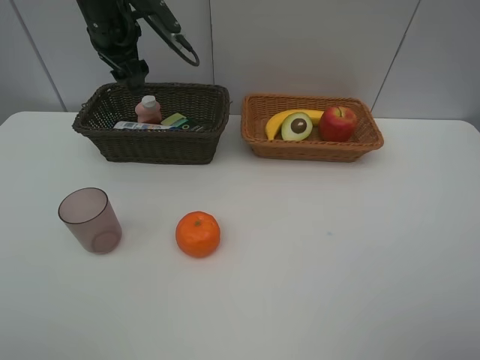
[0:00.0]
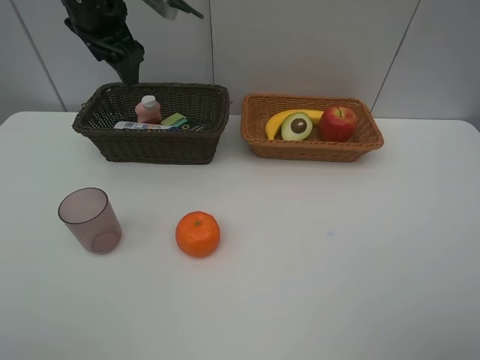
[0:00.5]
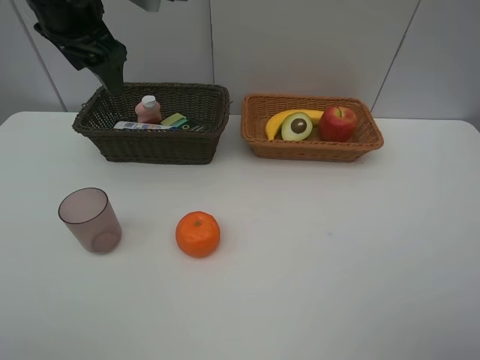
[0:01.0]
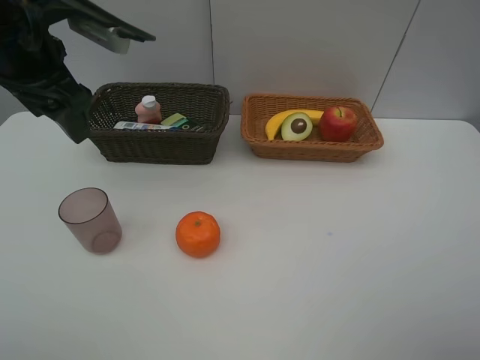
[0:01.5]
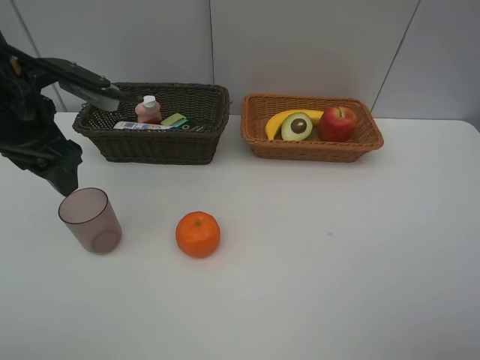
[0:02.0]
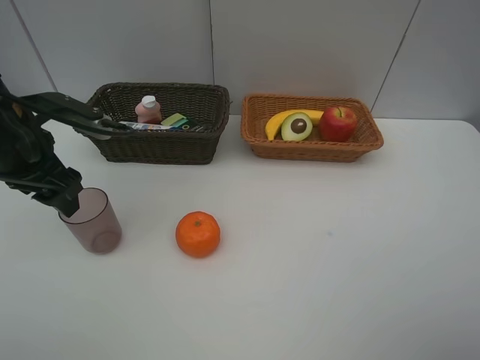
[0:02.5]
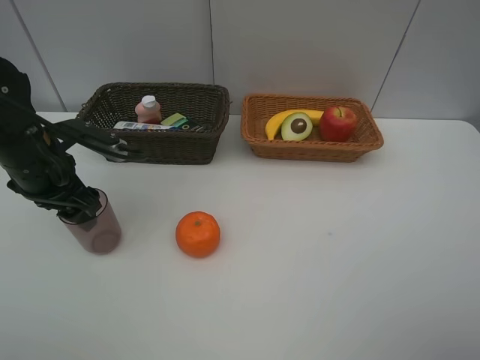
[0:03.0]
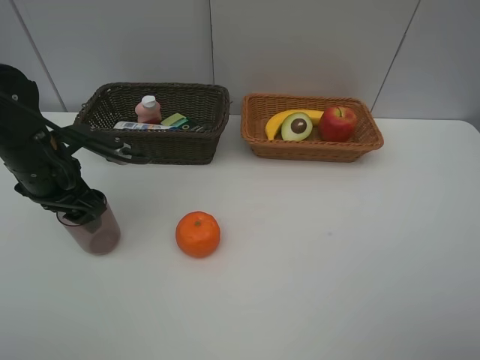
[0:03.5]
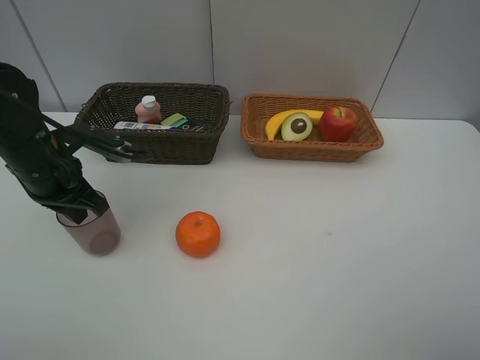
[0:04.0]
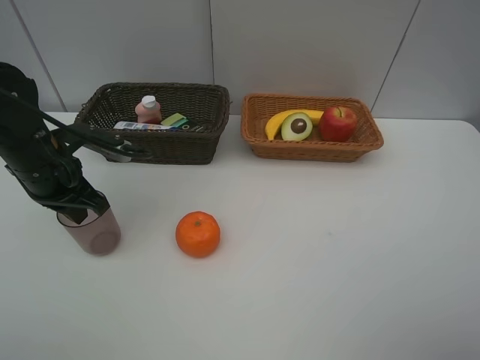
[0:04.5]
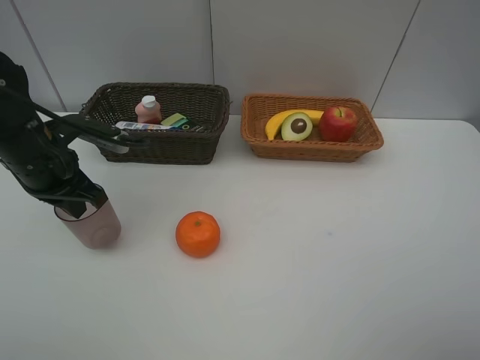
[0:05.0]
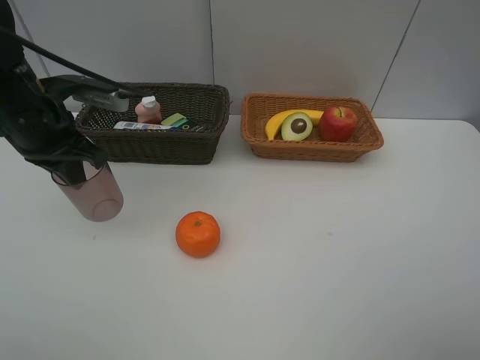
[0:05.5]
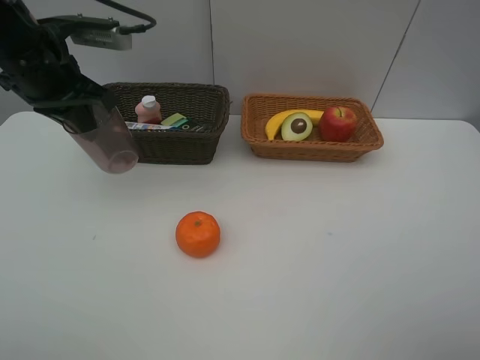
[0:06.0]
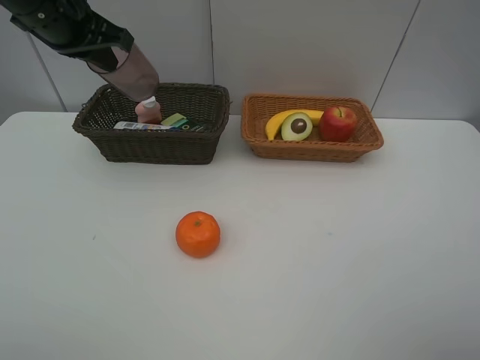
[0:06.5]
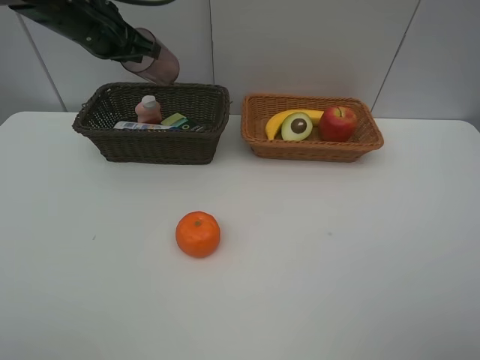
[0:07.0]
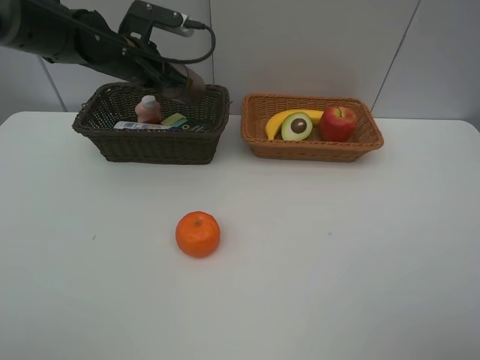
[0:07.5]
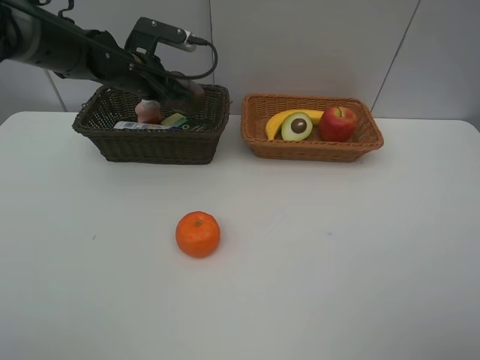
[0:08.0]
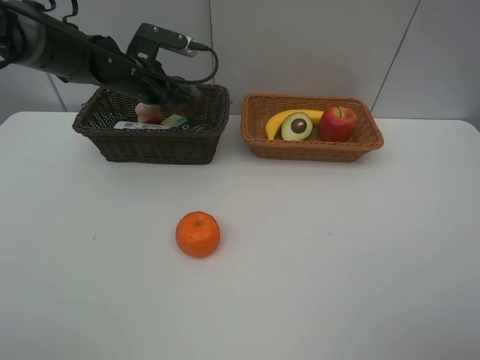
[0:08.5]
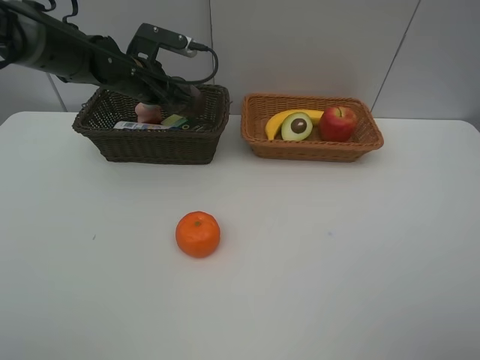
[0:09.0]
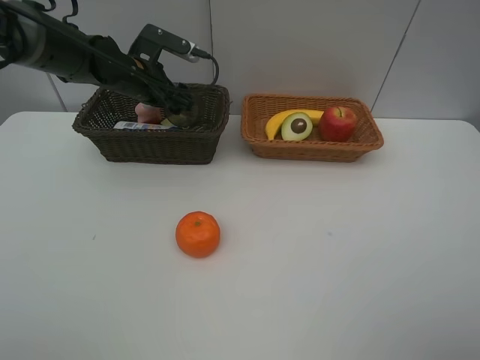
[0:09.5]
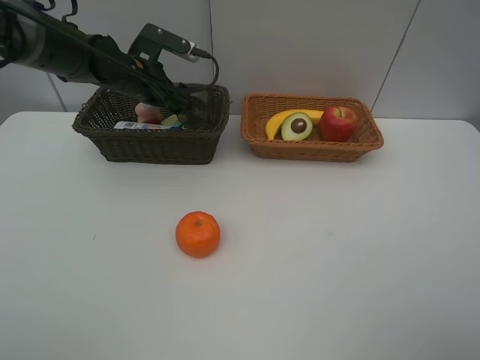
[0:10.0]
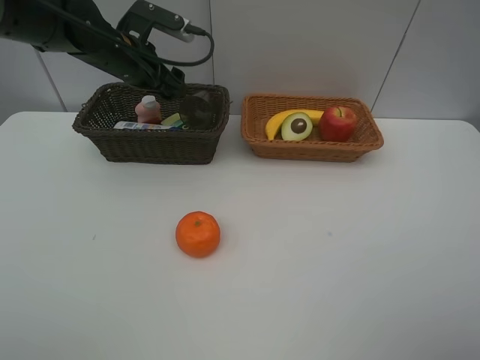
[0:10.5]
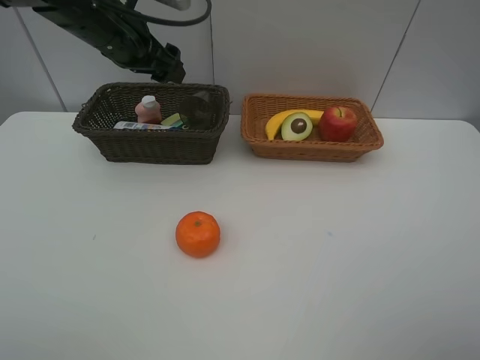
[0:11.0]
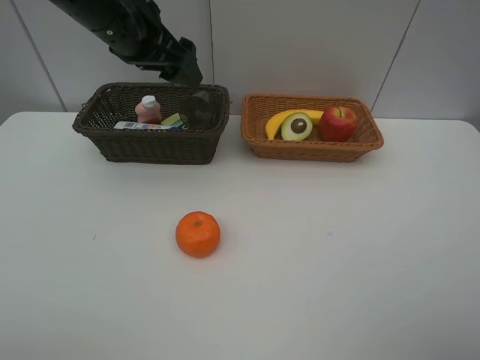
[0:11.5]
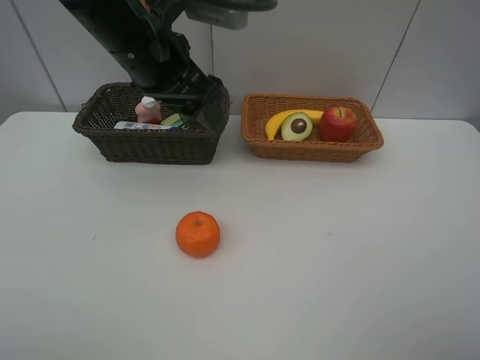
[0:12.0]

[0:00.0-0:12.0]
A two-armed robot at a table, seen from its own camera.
Task of the whole recording: Place multiple objects separately in different baskets.
Step, 0:00.0 to 0:05.0: Pick up the red cup with left gripper.
Step, 0:05.5 to 0:10.5: Place the red cup in the dark basket with left gripper.
0:00.0 to 0:02.0: The left gripper shifts some 20 cm backward.
0:02.0 to 0:04.0: The left gripper goes roughly 10 cm downward, and closes.
0:04.0 to 0:06.0: The left gripper travels upward by some 10 cm.
0:06.0 to 0:08.0: The left gripper goes about 15 cm forward, downward and to the right.
0:08.0 to 0:10.0: The left gripper opens its fingers.
0:10.0 to 0:12.0: The left gripper moves backward, upward and to the right, some 20 cm.

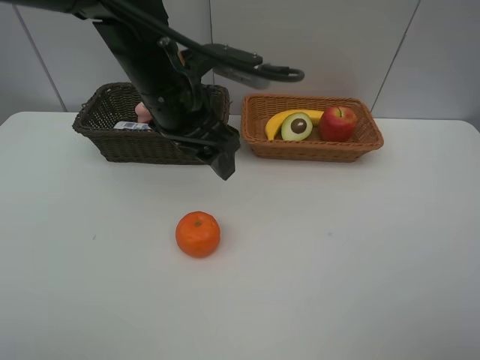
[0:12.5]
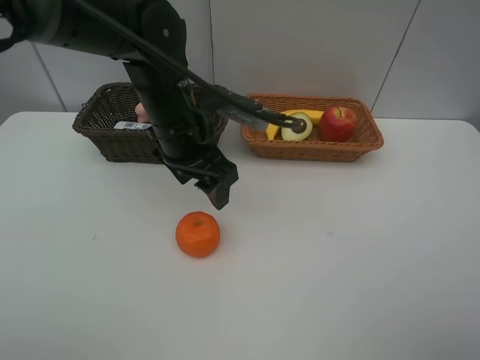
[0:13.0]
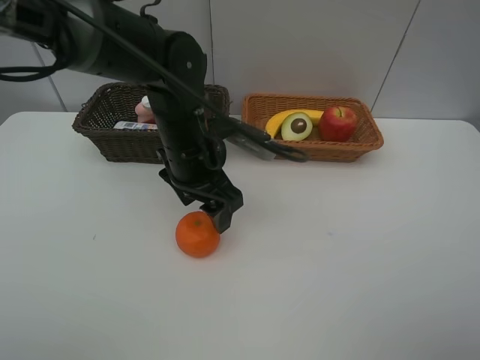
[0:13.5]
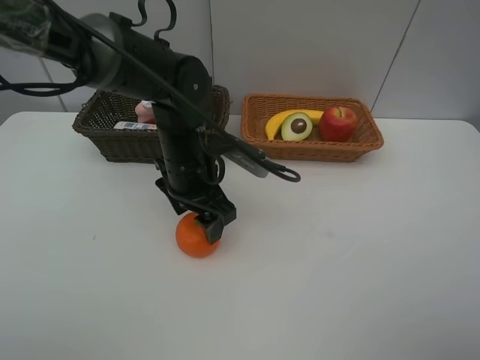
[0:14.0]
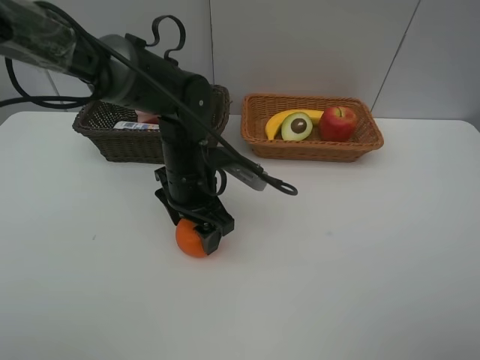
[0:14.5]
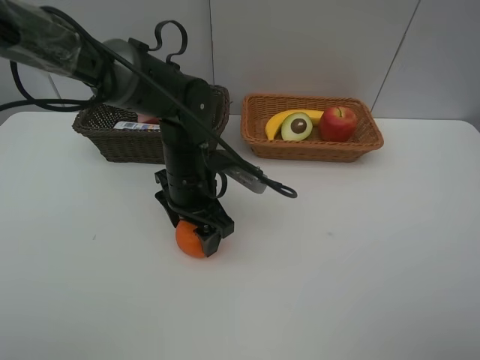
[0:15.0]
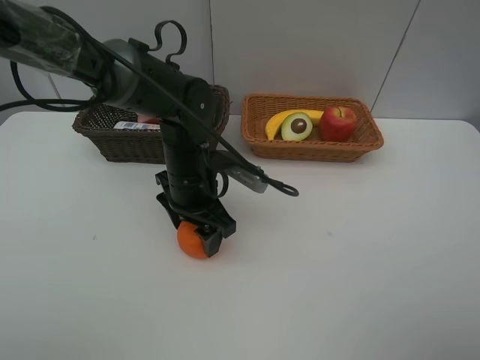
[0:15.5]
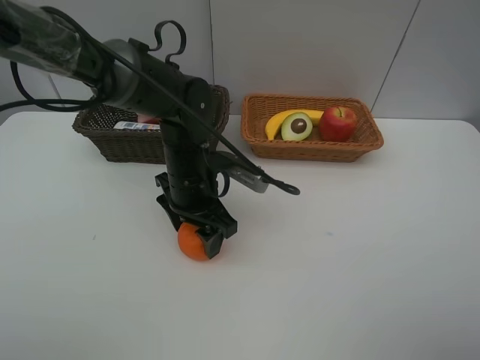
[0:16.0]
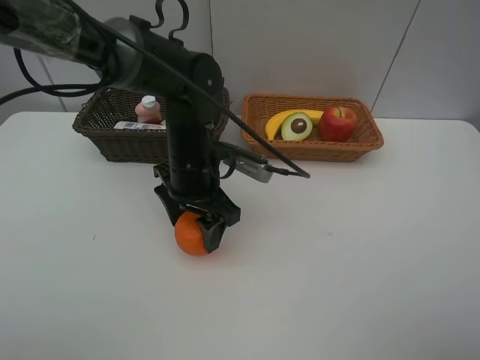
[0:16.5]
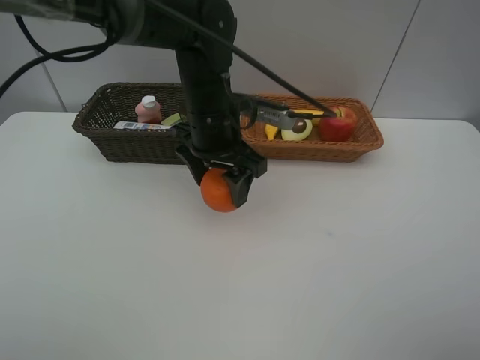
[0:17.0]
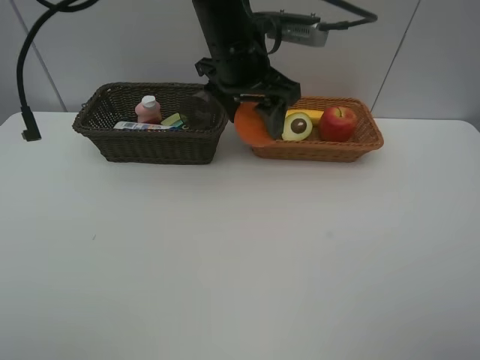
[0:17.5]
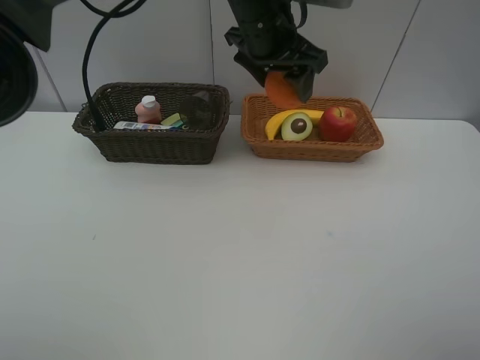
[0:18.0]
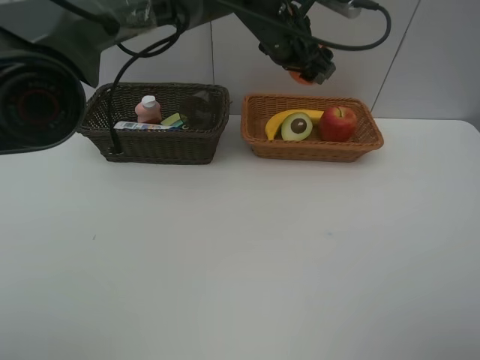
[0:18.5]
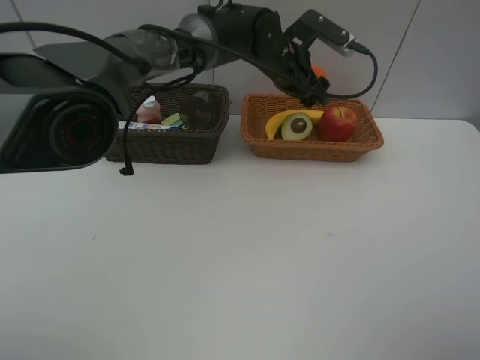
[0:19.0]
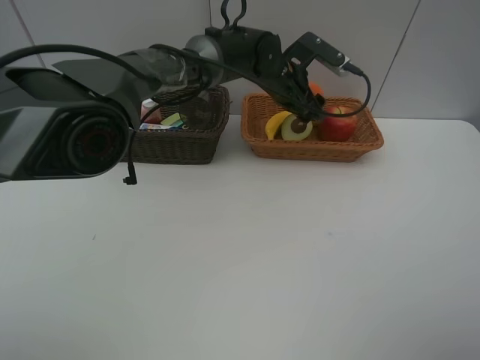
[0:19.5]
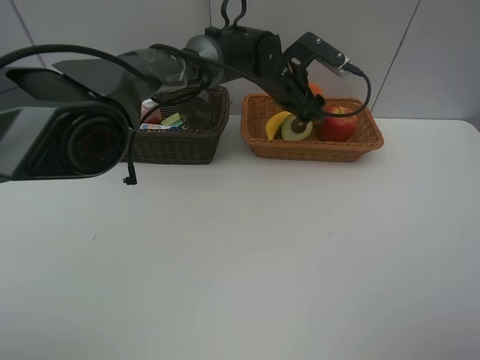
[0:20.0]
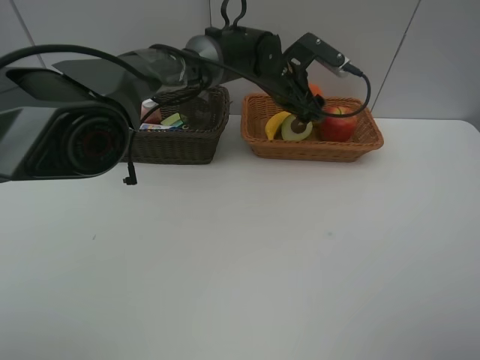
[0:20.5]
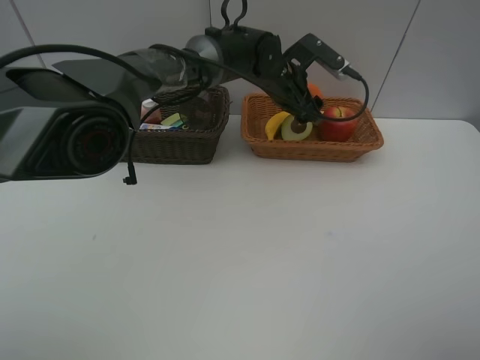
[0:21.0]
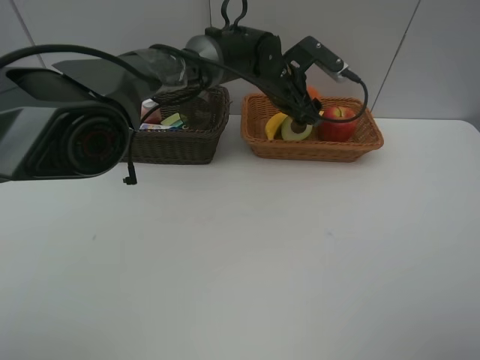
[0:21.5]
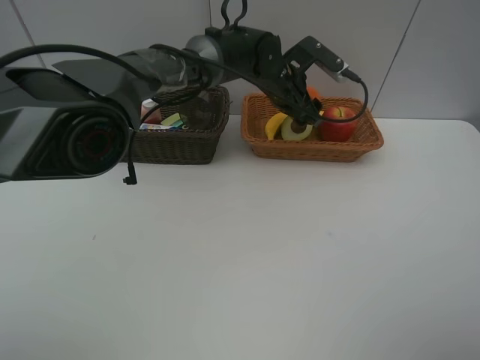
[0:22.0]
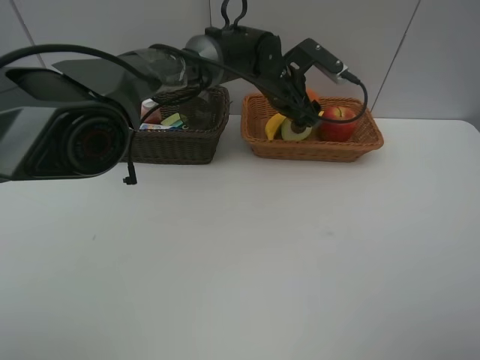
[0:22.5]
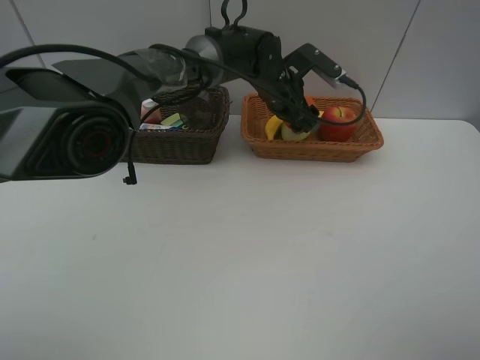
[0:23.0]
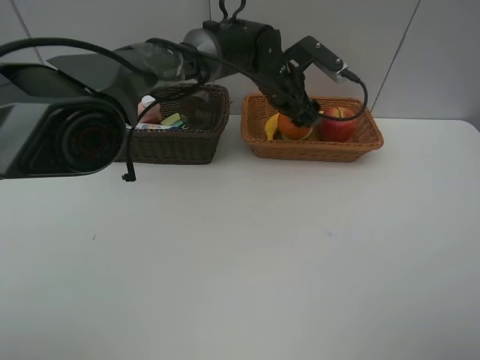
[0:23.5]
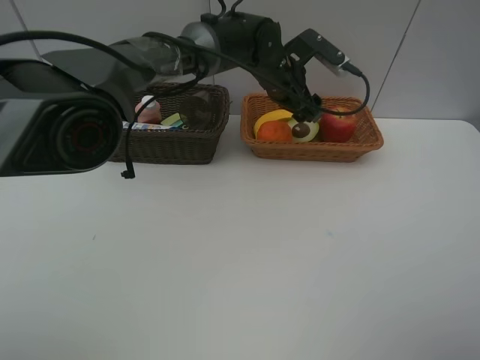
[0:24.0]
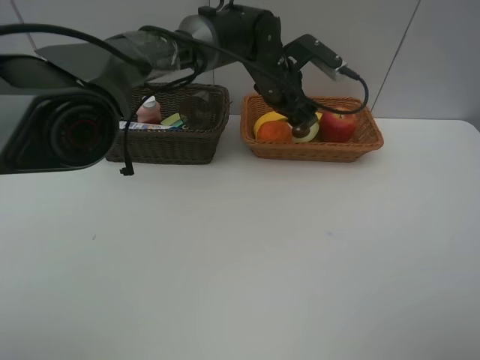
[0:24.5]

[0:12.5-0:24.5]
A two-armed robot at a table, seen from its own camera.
Task of the whole recording: Place multiple objects separately in different baskets.
Step, 0:12.5 to 0:16.5: Pick up the orange with left gripper.
0:12.5 to 0:14.5: The left gripper shifts some 10 cm downward.
0:14.5 to 0:16.5: The grippers stay close to where they were, moving slightly.
0:16.5 to 0:18.5: The left gripper is displaced forward, to the right and upward by roughly 20 cm.
0:18.5 to 0:20.5: The left gripper goes about 10 cm downward.
0:20.5 to 0:22.5: Neither gripper changes place.
0:22.5 to 0:24.5: There are only small adjustments of the grippers.

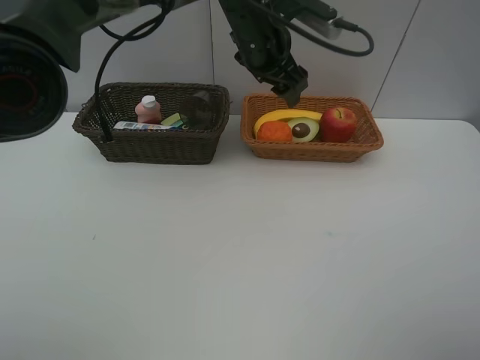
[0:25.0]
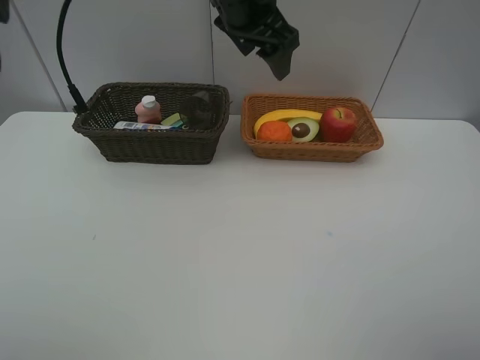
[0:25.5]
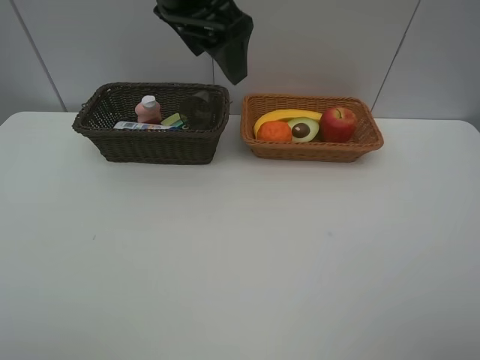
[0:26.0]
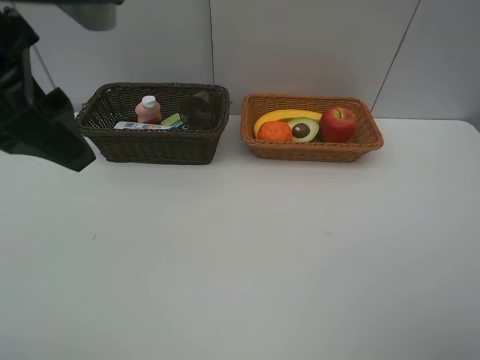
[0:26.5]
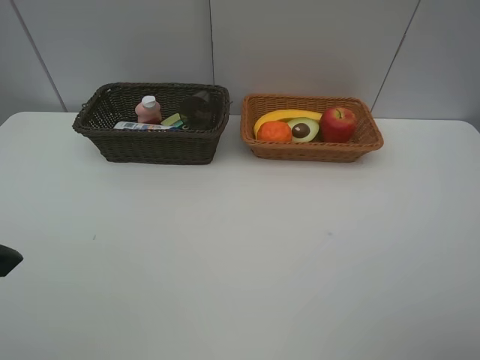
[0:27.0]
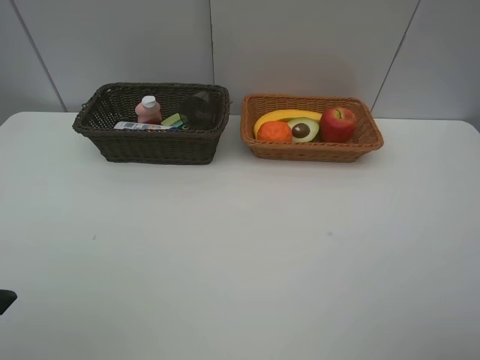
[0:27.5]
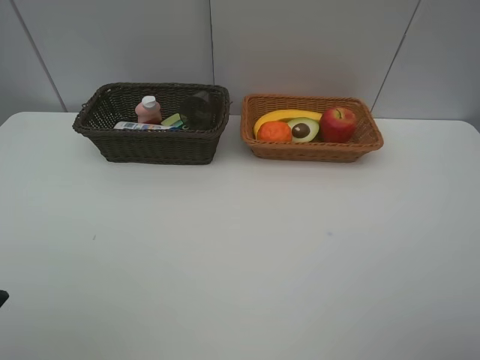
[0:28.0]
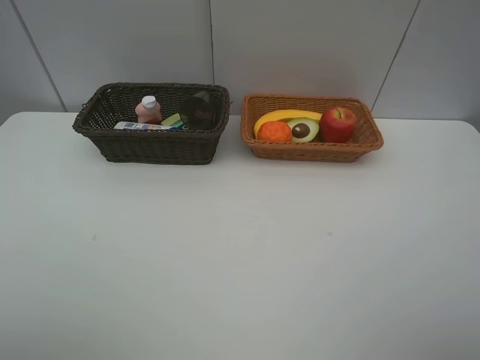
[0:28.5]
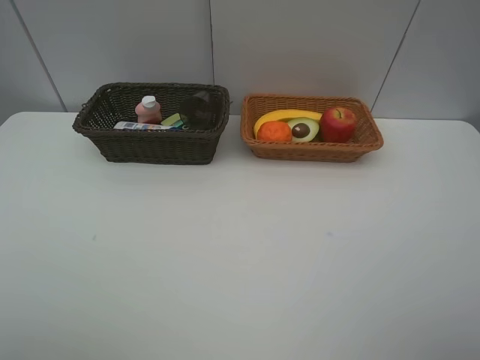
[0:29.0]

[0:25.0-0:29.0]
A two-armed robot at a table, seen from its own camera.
Task of the whole recording: Place multiple objects separately in different baskets.
0:25.0 to 0:27.0: The left gripper heads backward and to the left, covering roughly 40 cm.
